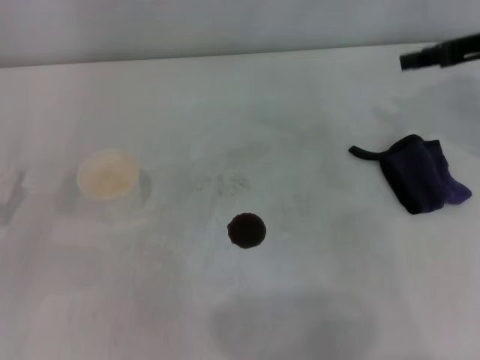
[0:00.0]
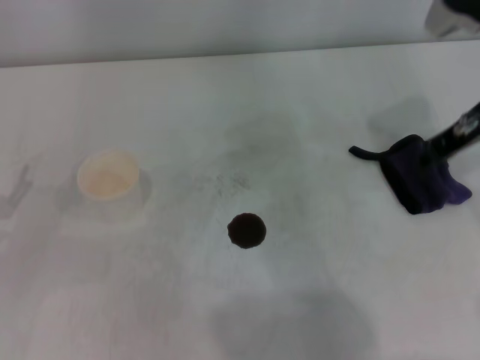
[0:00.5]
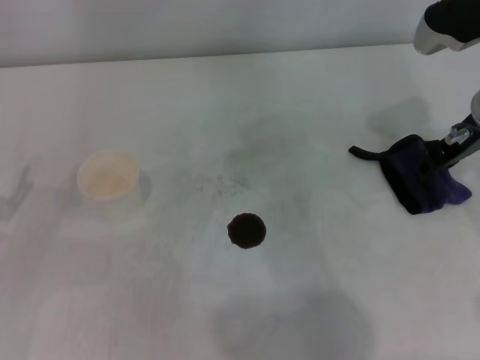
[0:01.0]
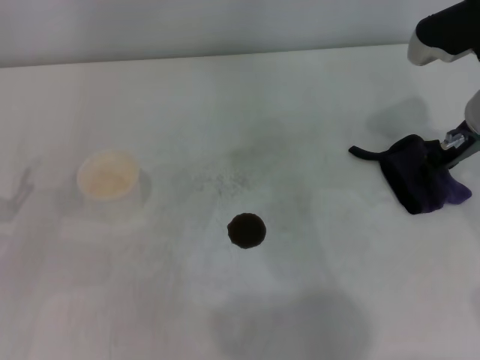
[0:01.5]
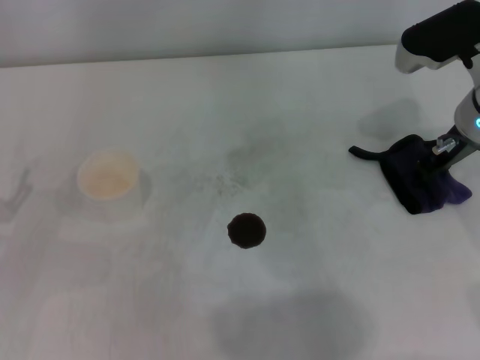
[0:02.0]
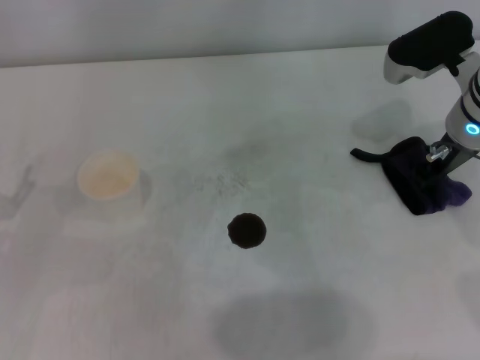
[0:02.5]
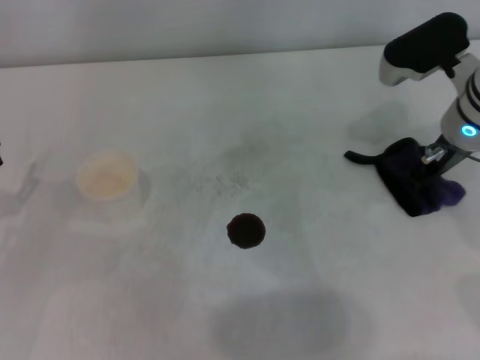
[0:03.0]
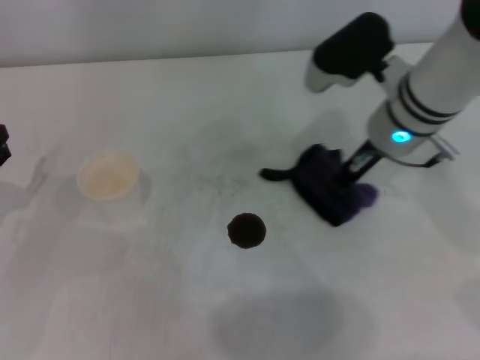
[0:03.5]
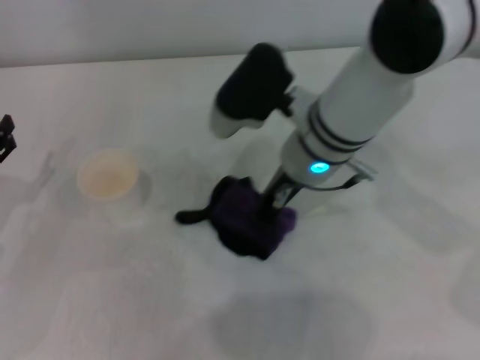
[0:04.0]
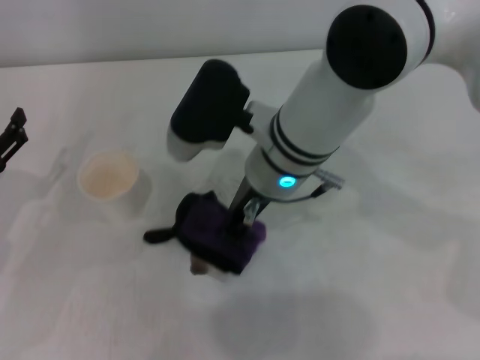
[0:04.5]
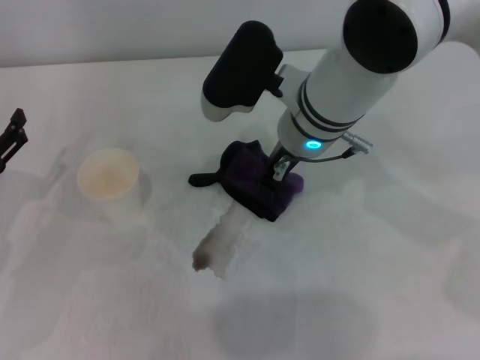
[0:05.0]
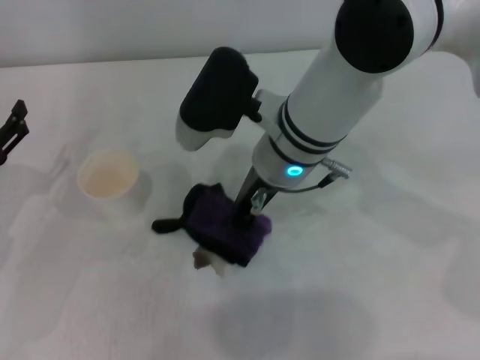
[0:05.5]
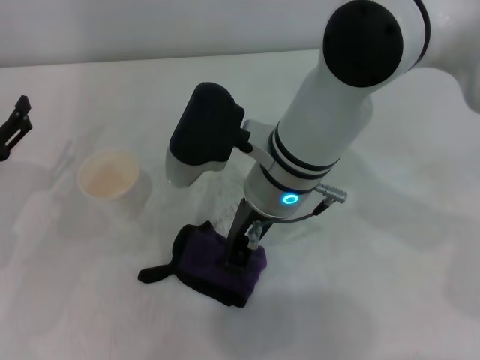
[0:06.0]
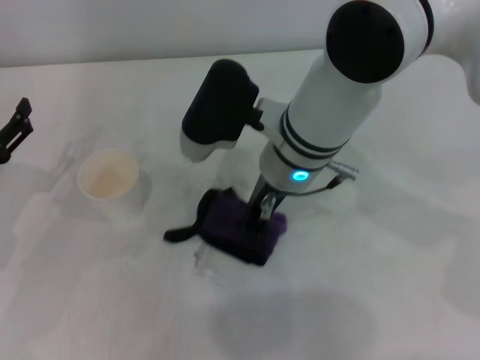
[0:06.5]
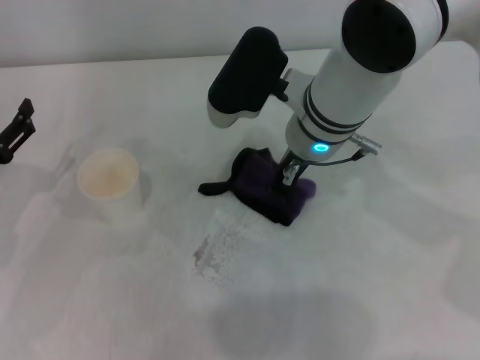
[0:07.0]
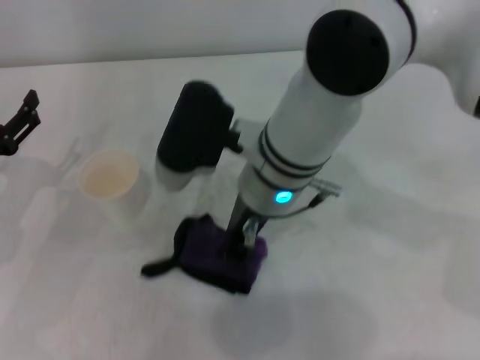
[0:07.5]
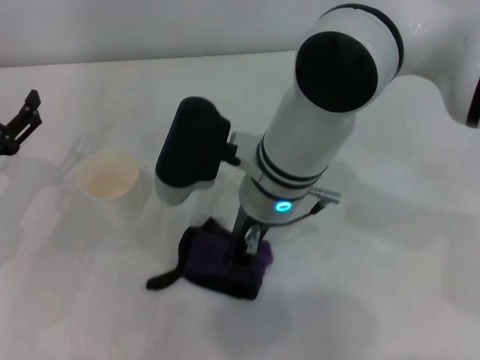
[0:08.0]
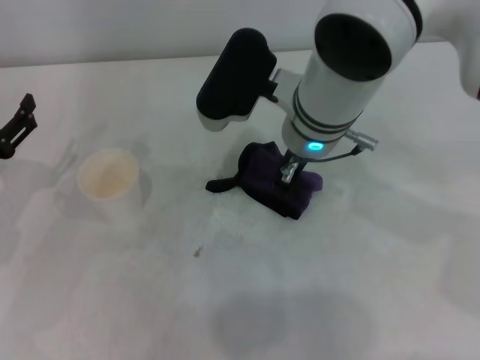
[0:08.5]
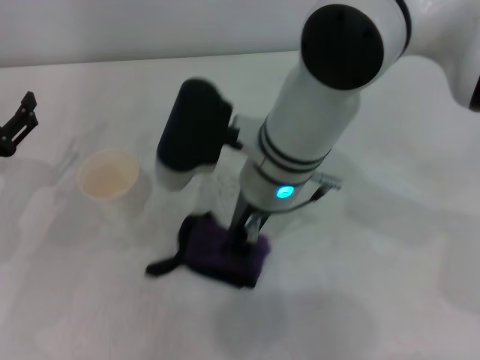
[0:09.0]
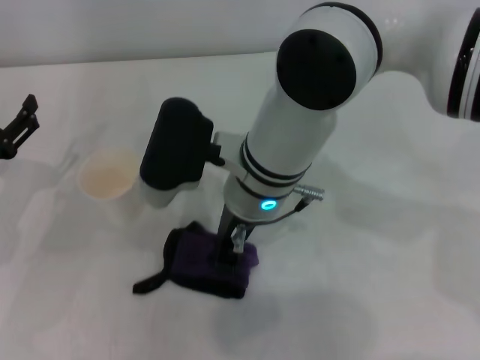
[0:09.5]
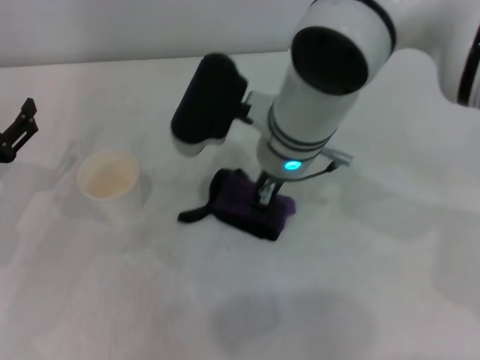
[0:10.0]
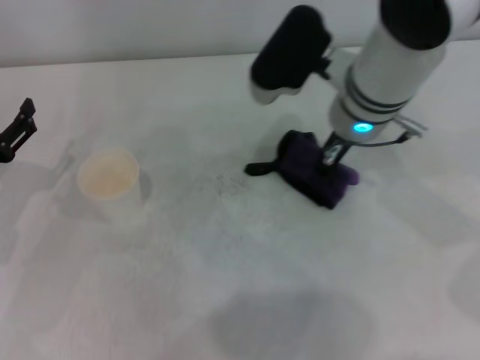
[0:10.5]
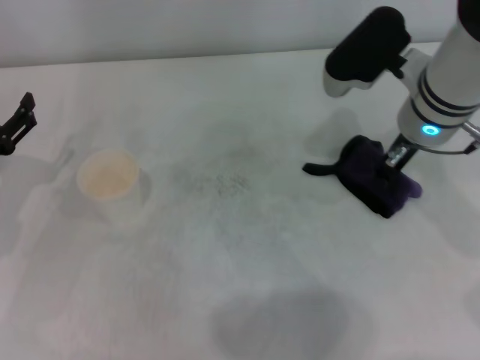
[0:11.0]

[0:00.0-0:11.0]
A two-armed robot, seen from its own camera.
Step, 0:00.0 to 0:02.5: Grasp the rag with the right gripper.
Step, 0:03.0 to 0:11.0: Wipe the stains off the table with the right gripper.
0:00.0 to 0:02.0: The right gripper travels downward and to the left by approximately 10 cm.
0:02.0 to 0:03.5: The right gripper moves to the left, some 10 cm, and closes up.
0:03.5 to 0:05.5: The right gripper shifts some 10 cm to the left.
0:05.5 to 0:07.5: The grippers stay close to where they were, moving slightly.
0:09.0 to 0:11.0: The right gripper travels to the right by some 15 cm.

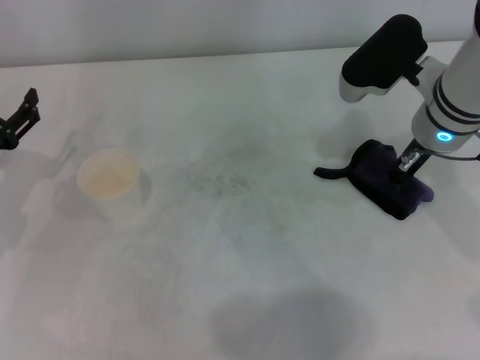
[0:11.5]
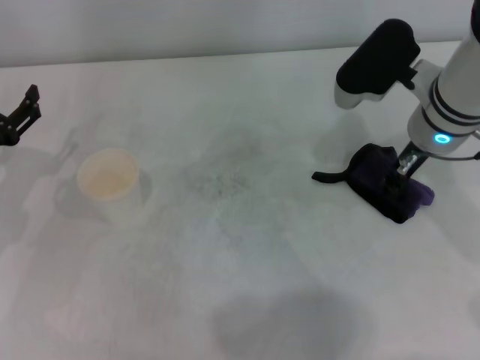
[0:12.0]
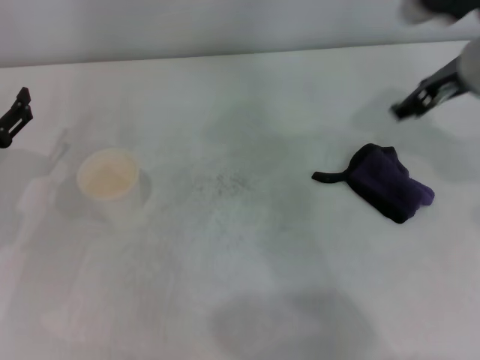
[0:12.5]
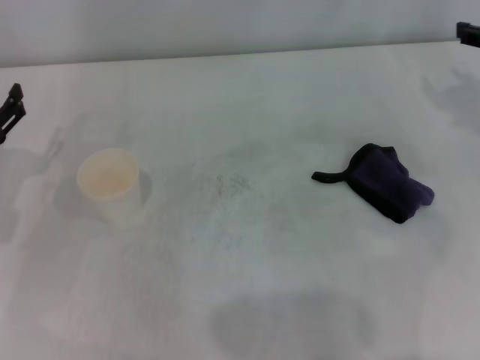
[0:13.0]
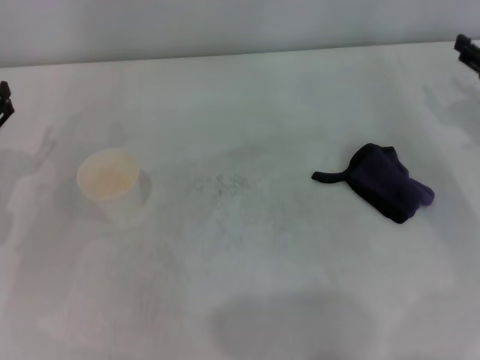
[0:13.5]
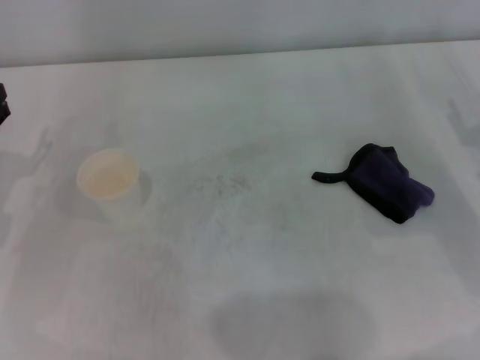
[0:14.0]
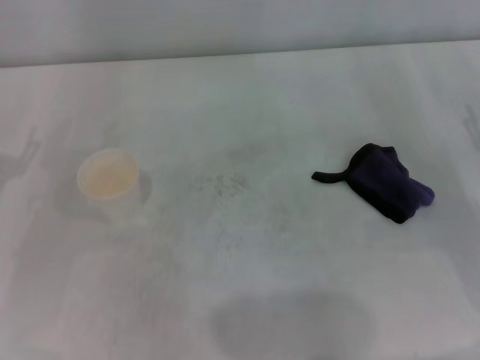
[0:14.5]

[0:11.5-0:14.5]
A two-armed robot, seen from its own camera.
0:11.5 to 0:13.0: The right gripper is displaced to the right by roughly 15 cm, and opens up.
0:13.0 to 0:14.5: The right gripper heads downward and backward, covering about 15 cm.
